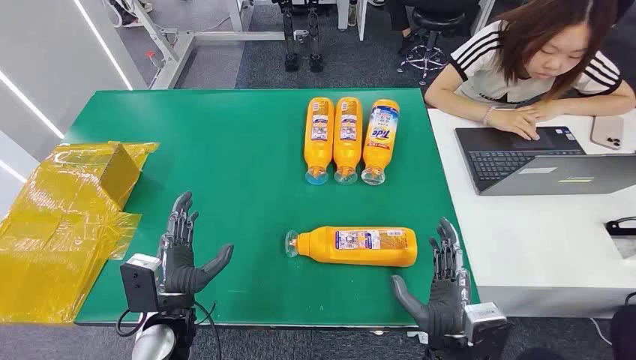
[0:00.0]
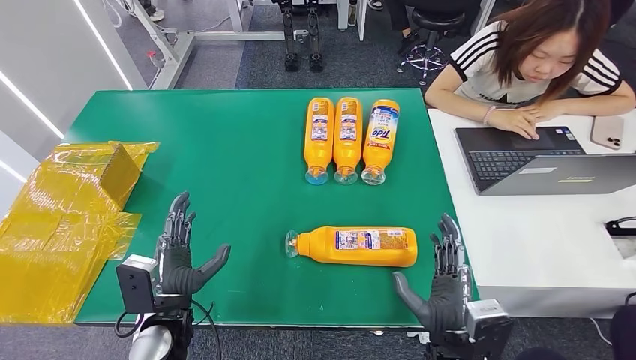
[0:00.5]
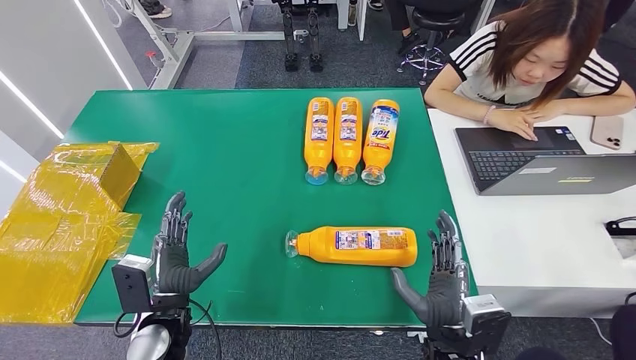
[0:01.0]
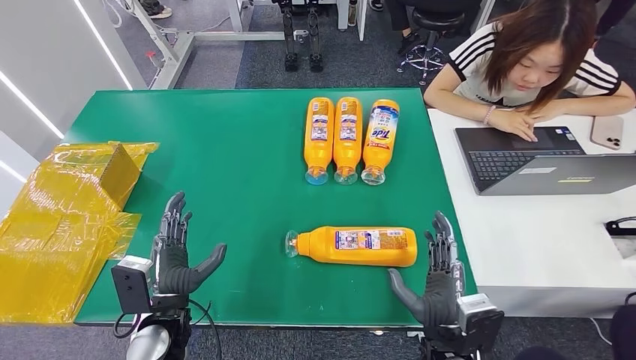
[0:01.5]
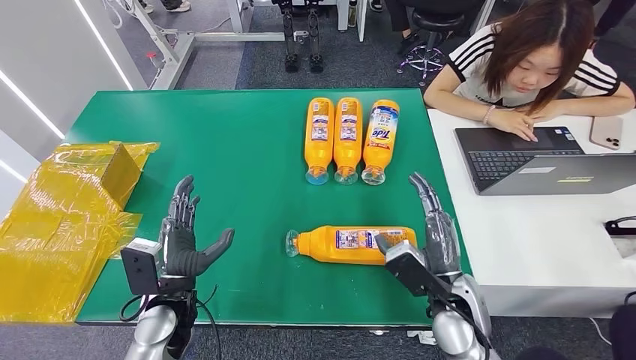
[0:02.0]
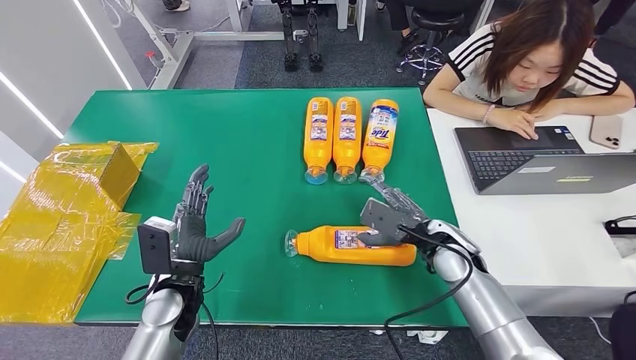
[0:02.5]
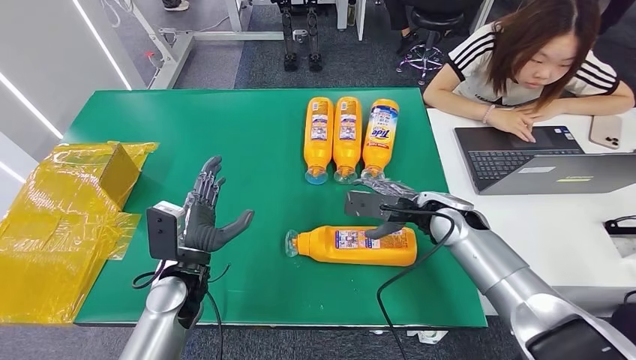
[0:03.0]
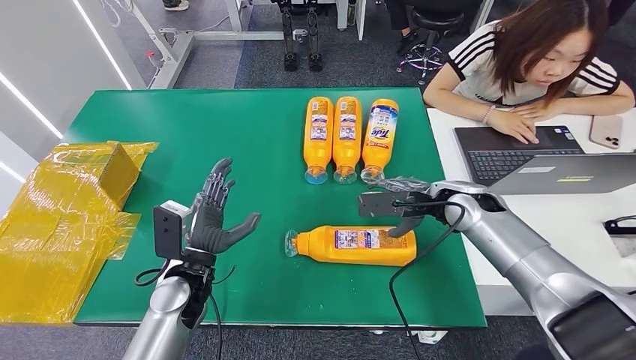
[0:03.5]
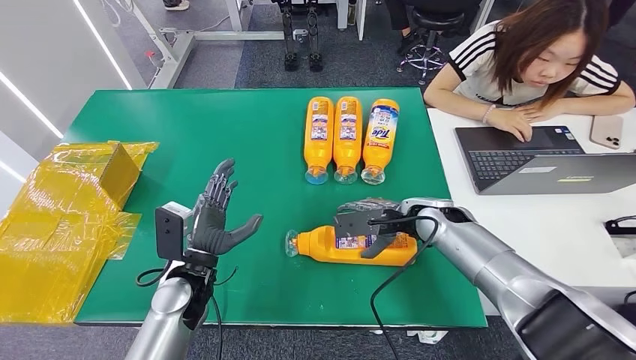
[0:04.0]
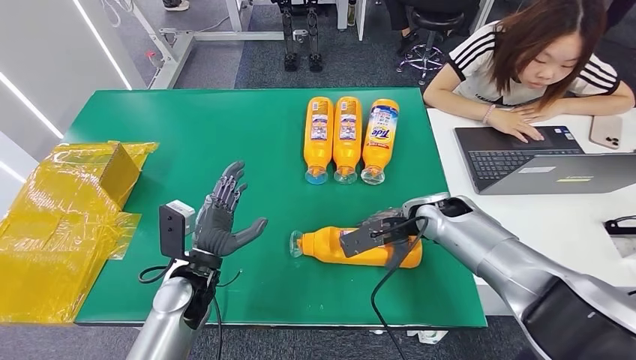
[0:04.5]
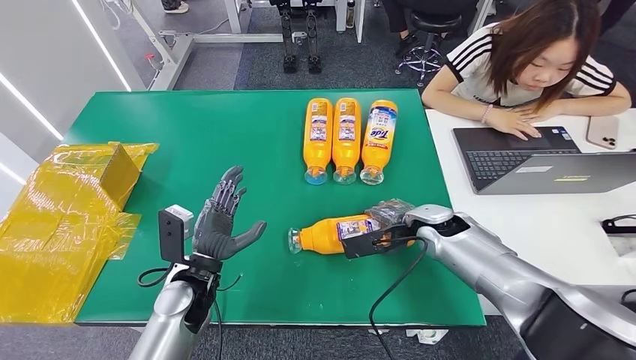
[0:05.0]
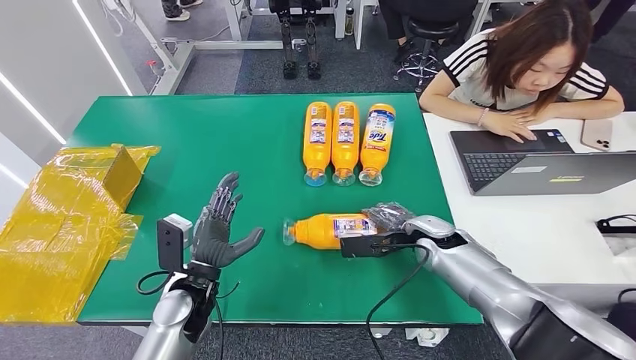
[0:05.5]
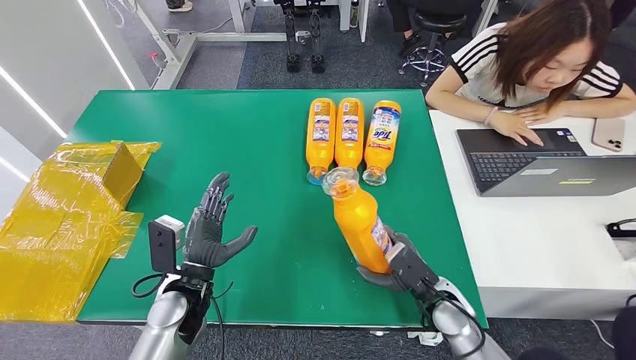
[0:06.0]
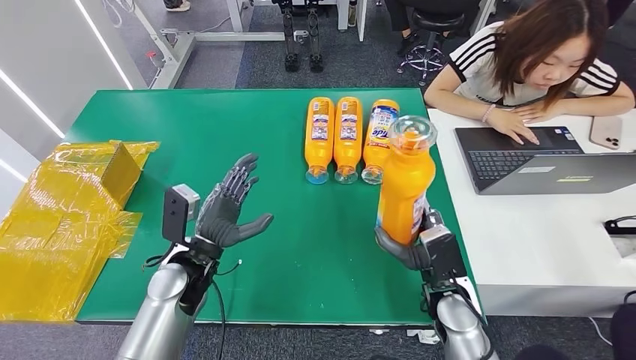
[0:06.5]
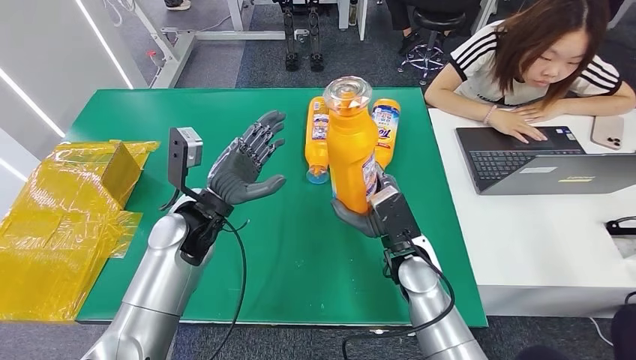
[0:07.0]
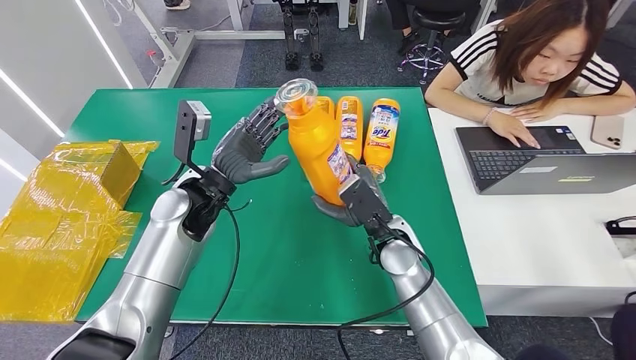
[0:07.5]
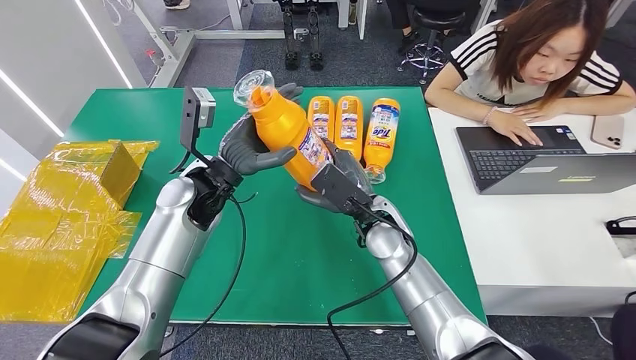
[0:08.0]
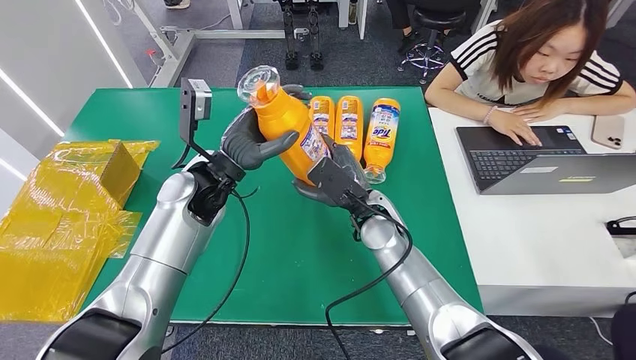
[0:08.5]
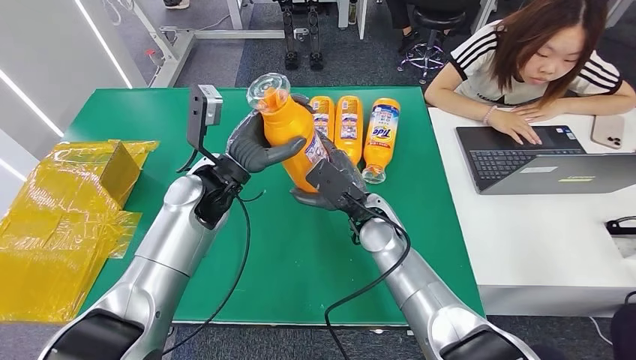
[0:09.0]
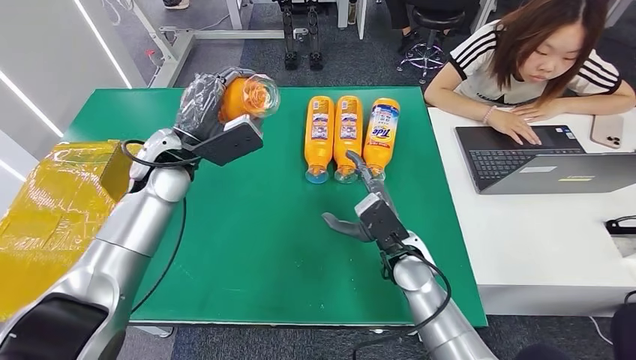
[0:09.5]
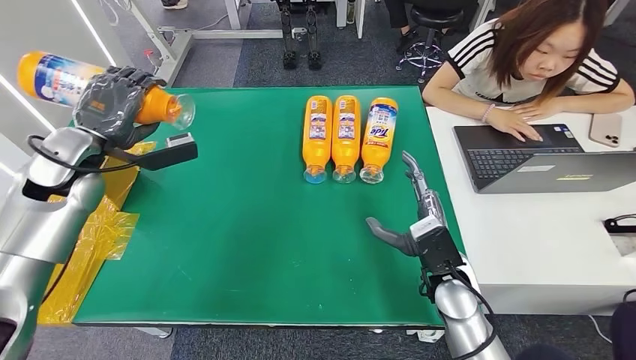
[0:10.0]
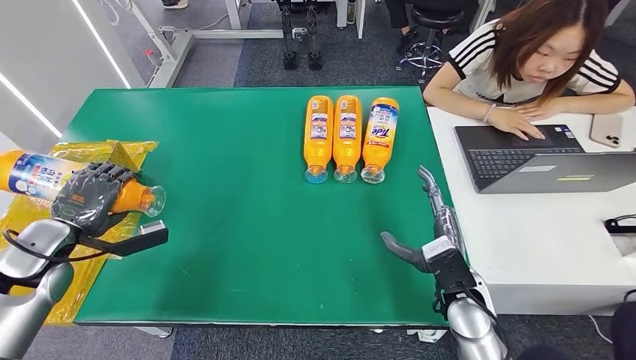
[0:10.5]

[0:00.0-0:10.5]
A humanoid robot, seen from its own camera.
Step, 0:00.0 to 0:06.5: Pick up the bottle from the table.
0:02.0 to 0:04.0: The right hand goes some 15 cm forward.
0:04.0 to 0:06.5: The right hand moves backward and downward, some 15 cm.

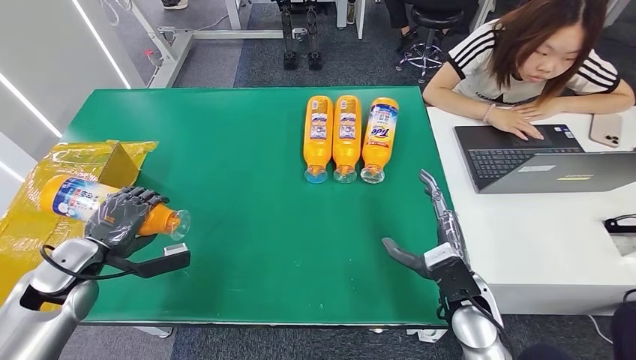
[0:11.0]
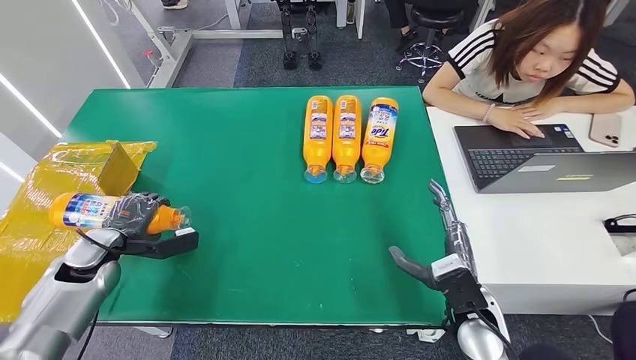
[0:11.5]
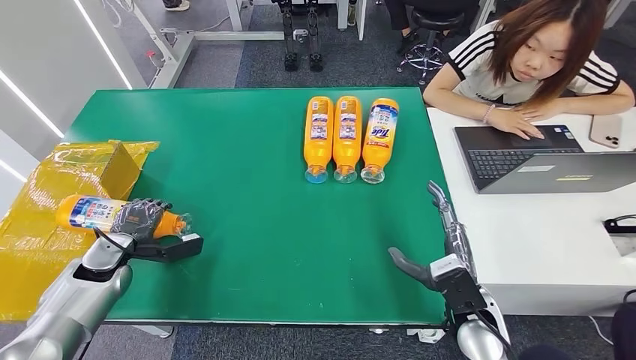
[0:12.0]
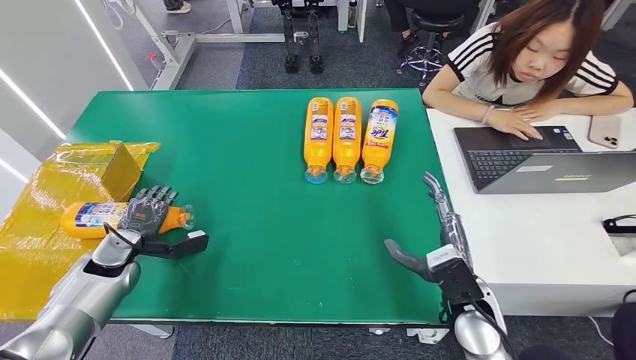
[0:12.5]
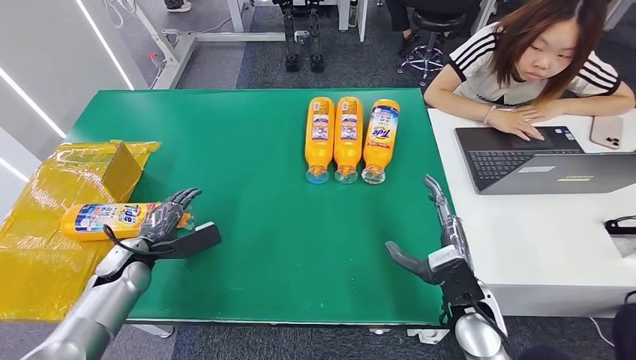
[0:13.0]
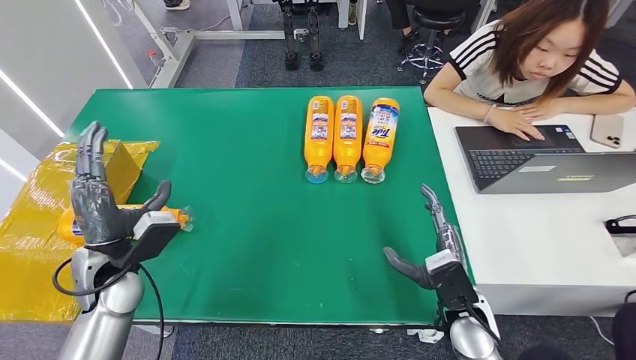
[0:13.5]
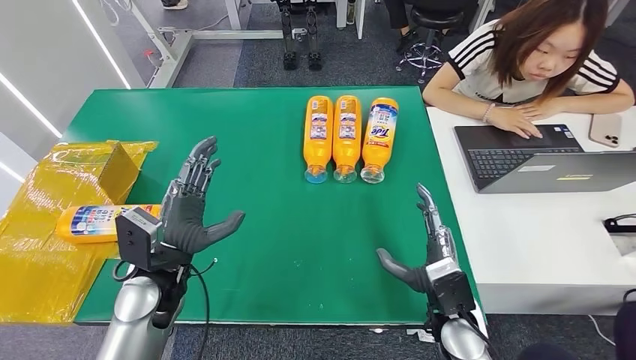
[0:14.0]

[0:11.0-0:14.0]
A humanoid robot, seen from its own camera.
Step, 0:11.0 to 0:14.0: Turn the bottle to the front side.
0:11.0 to 0:12.5: The left hand heads downward and forward, covering some 10 cm.
